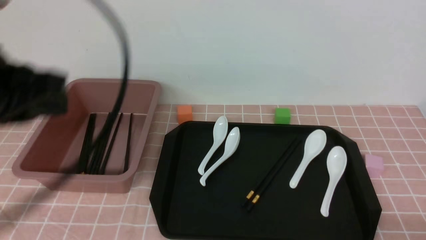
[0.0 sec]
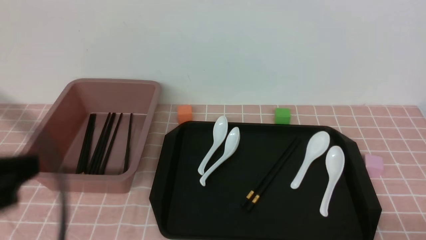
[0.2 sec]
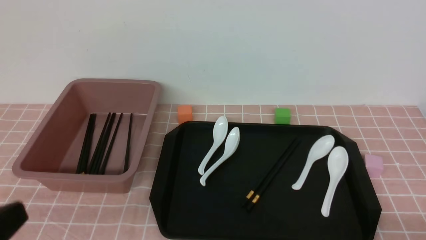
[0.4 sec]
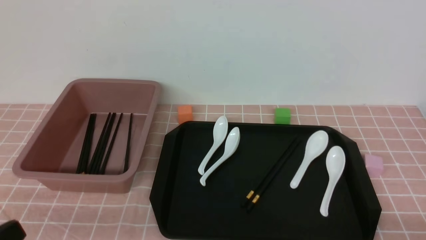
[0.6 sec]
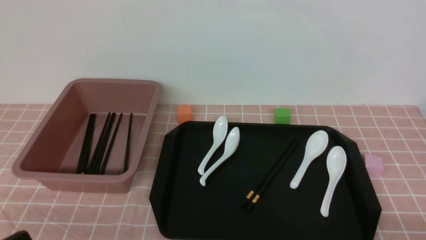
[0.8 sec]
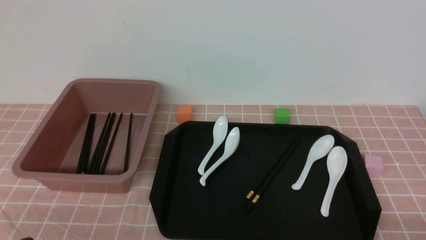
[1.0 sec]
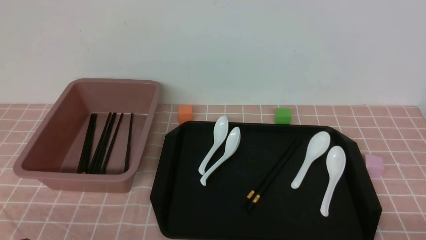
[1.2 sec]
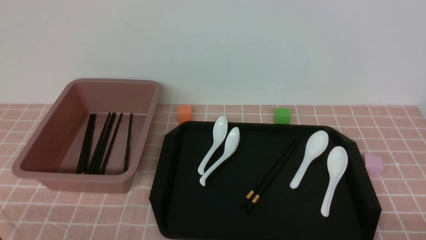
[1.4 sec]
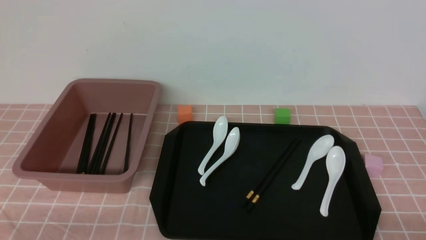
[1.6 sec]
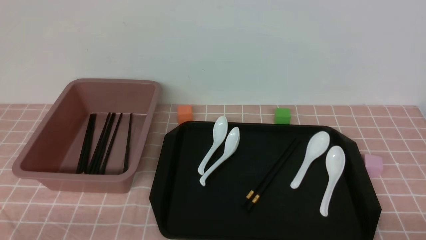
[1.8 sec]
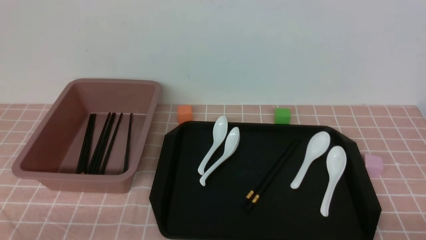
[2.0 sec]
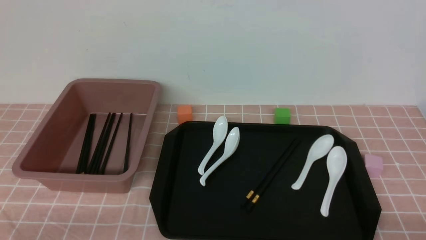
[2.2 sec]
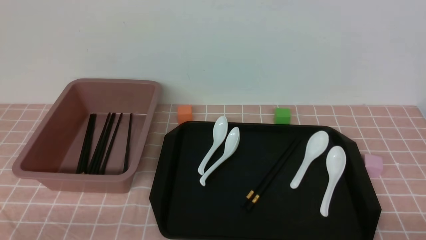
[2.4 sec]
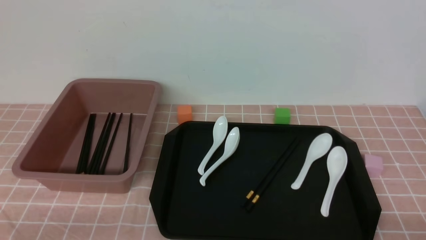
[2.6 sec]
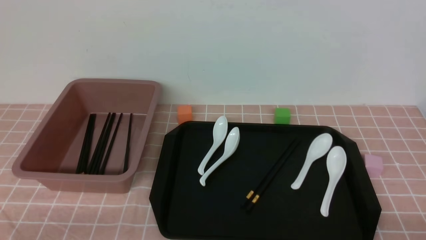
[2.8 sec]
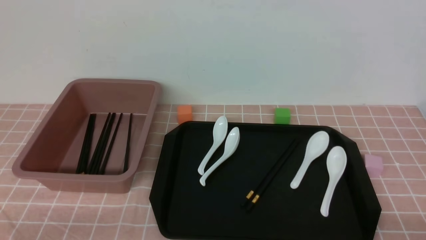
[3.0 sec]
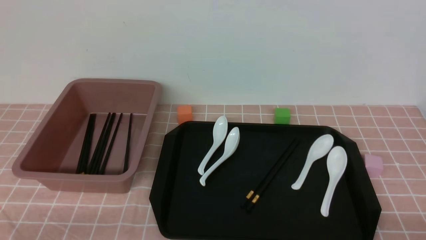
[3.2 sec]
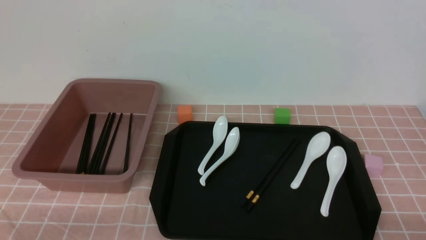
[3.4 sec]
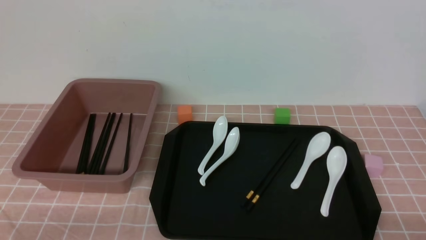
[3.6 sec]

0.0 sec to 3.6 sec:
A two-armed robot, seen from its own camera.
0.0 sec to 1.8 sec: The left gripper shifts approximately 25 cm downward and backward.
1.8 sec to 3.6 sec: Both grippers stay about where they are.

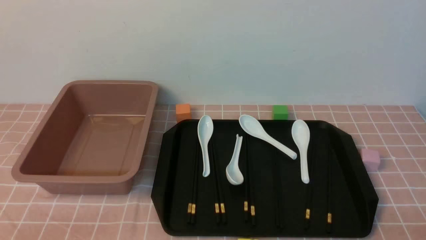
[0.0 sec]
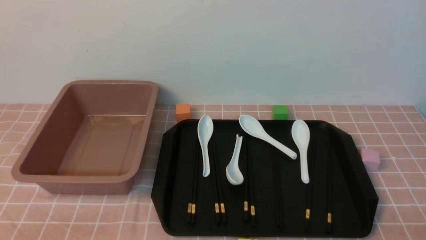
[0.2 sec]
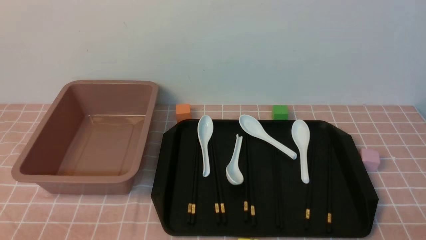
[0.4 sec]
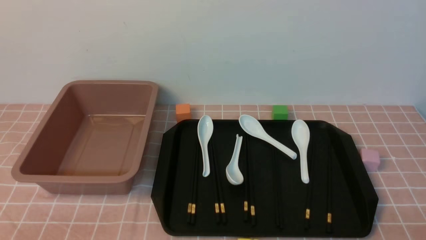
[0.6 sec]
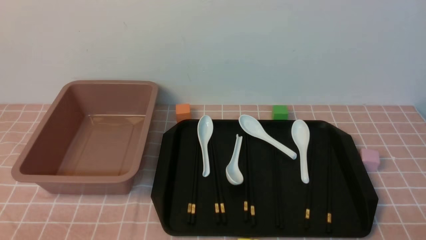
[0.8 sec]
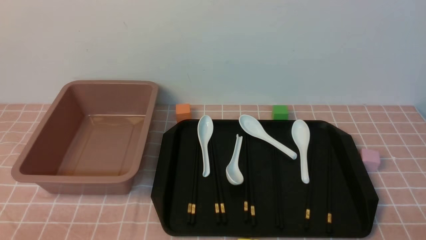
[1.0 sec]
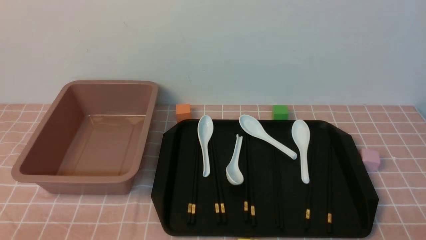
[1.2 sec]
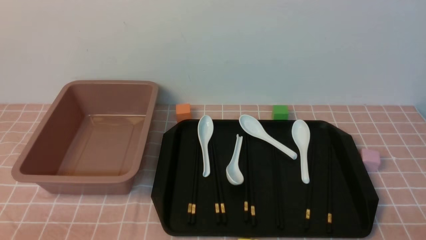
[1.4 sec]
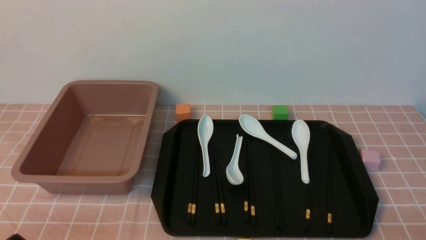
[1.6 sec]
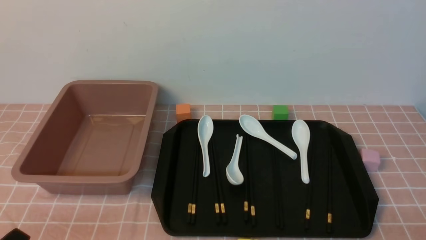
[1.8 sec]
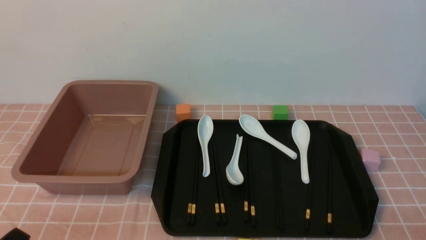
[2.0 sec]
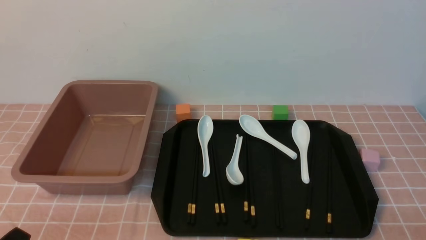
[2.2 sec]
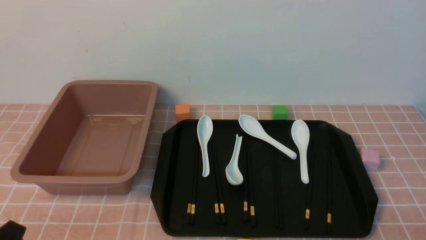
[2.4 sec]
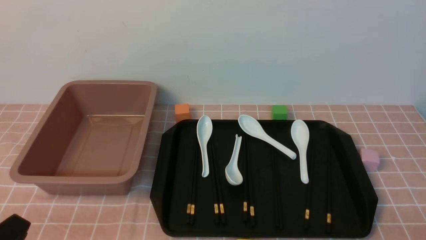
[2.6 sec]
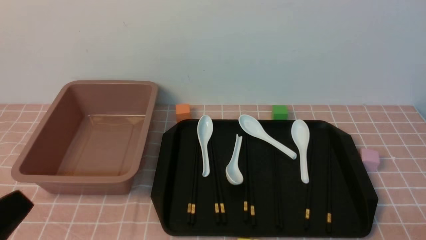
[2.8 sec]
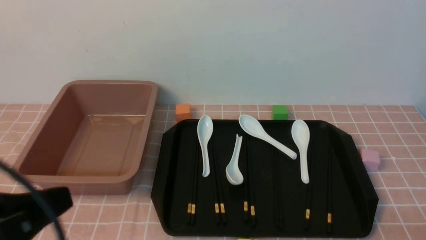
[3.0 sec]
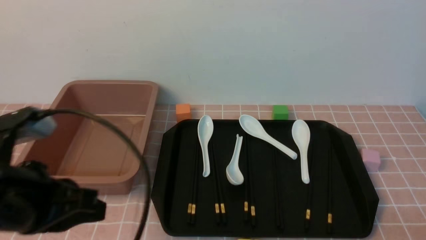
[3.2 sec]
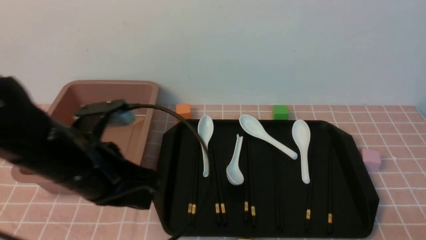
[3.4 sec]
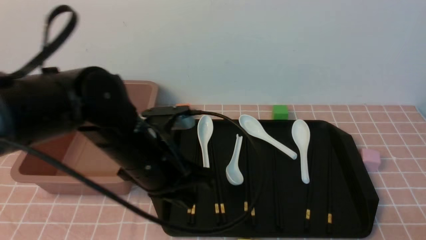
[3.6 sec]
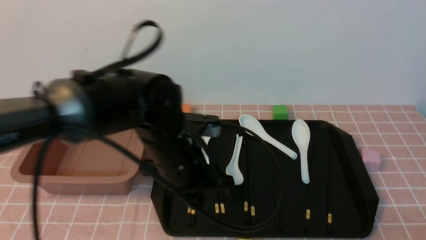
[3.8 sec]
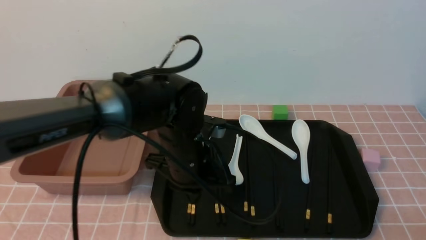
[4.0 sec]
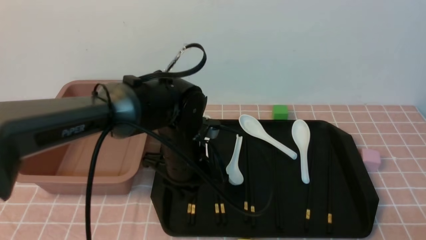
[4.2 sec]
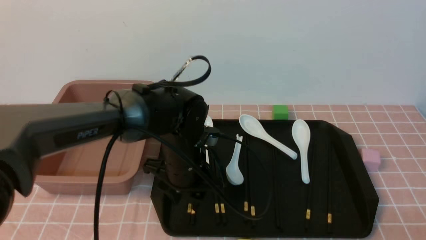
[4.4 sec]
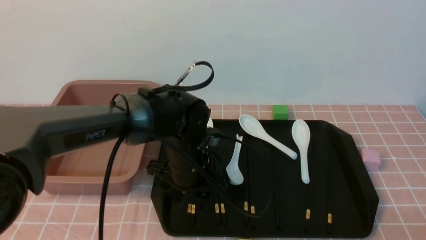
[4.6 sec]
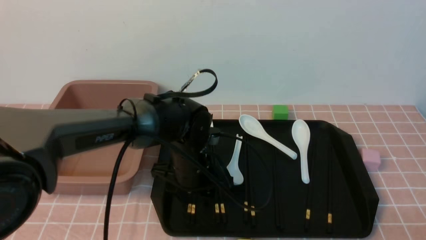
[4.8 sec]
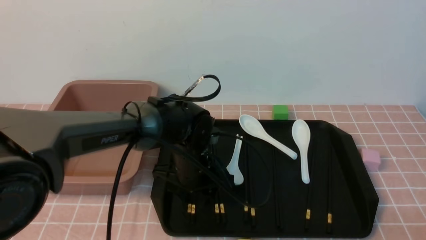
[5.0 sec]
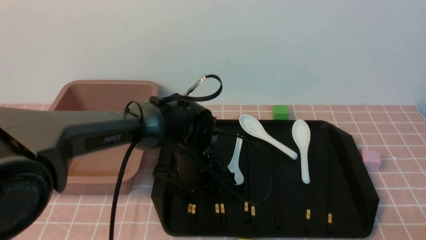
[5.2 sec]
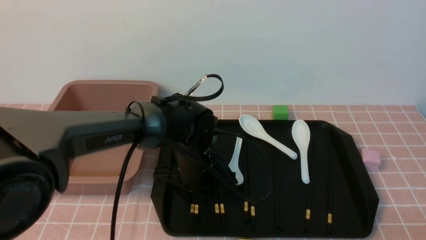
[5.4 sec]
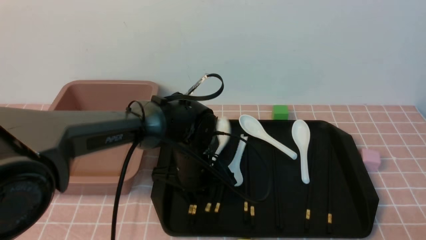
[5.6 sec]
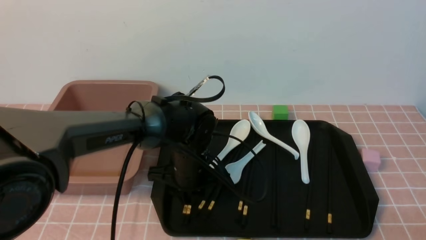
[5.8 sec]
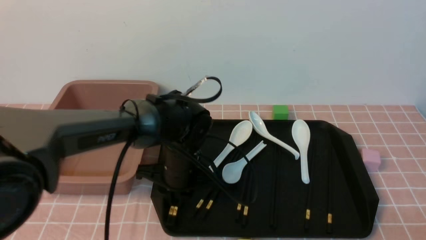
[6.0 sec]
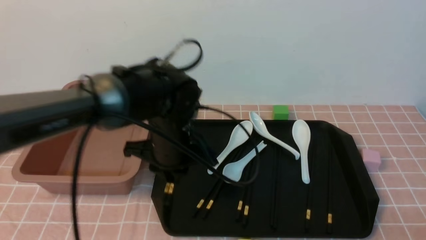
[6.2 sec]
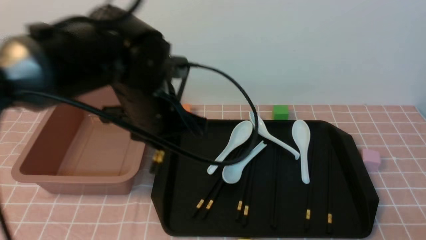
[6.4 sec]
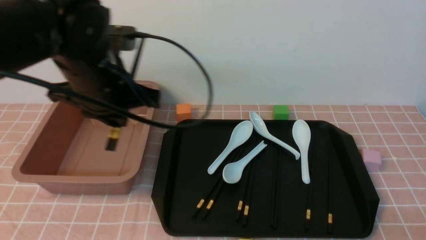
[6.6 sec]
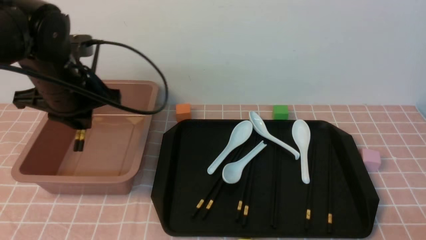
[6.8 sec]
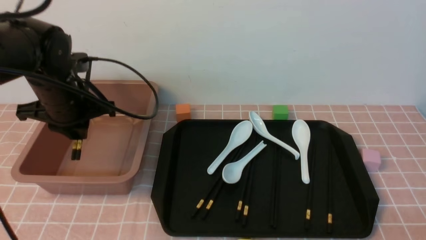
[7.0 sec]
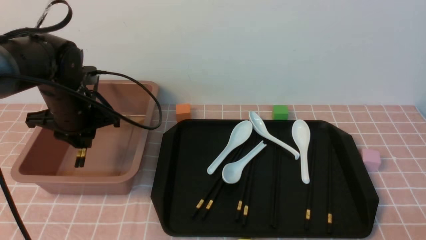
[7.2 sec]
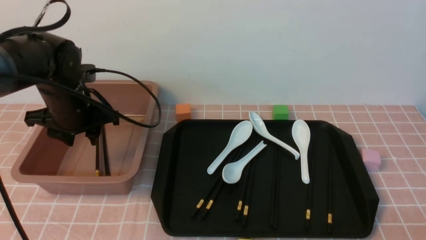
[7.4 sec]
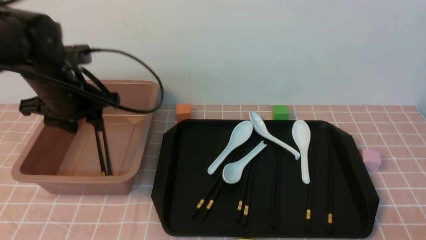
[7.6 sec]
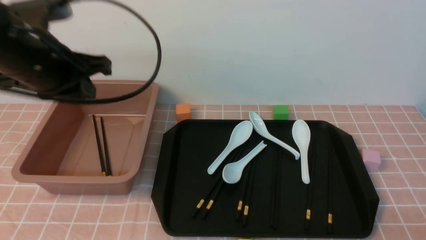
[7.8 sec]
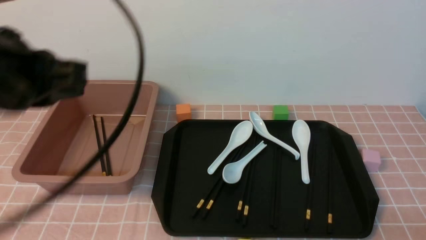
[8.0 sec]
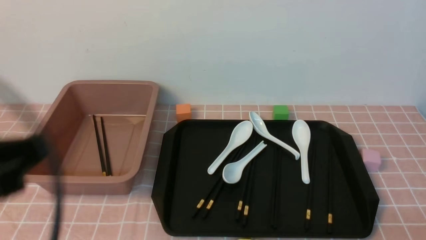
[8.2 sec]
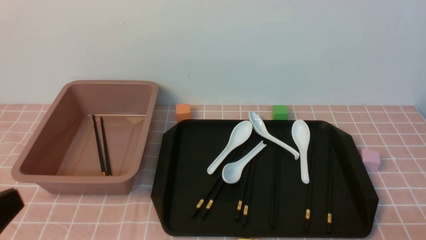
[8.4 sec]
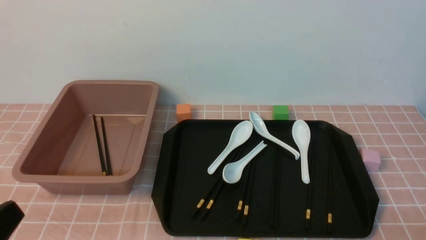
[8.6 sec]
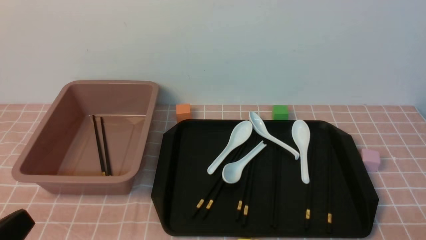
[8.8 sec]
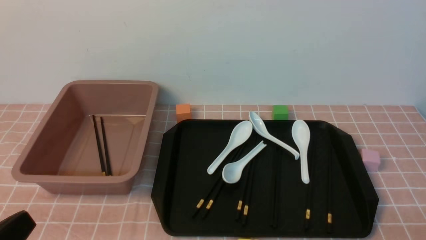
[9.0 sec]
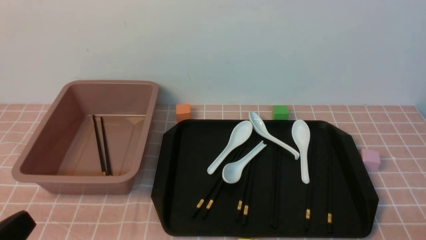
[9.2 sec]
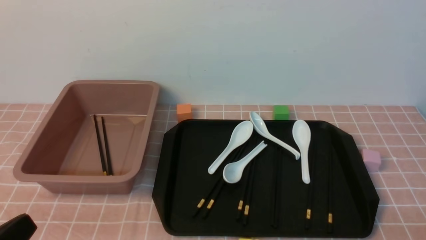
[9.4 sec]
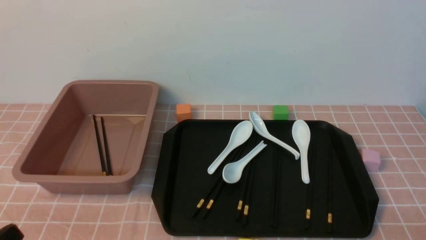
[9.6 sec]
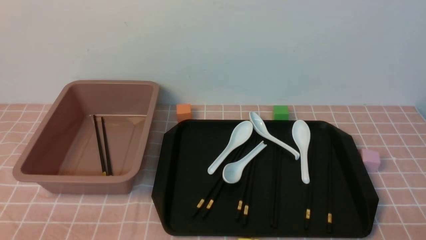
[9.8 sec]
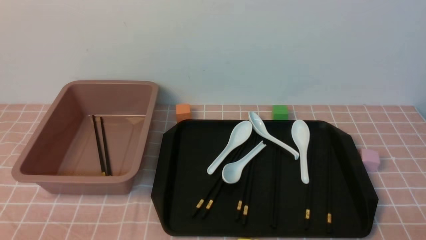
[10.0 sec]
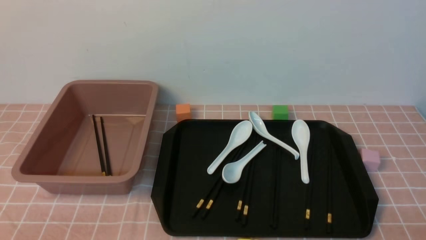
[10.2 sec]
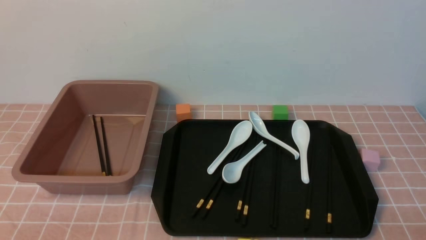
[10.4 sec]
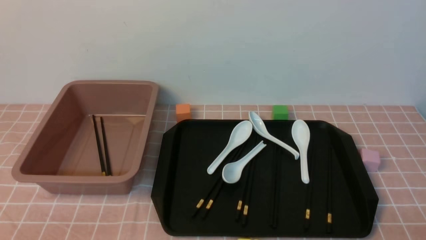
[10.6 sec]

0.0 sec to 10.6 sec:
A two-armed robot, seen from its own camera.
Step, 0.0 sec to 6.0 sec: use the left arm to grab a pair of chopsticks.
Step, 6.4 sec to 7.6 sec: use the left arm to put the chopsticks into the lunch box.
1.6 sec to 3.0 sec: The left gripper goes roughly 15 cm upward, and closes.
3.0 sec to 4.6 sec: The left gripper travels forward, to the right and downward by some 35 cm, and opens its fingers.
4.6 sec to 6.0 sec: The left gripper closes.
6.0 sec to 7.6 sec: The left gripper shifts some 20 cm to the left and upward, and opens up.
7.6 sec to 9.0 sec: The left gripper heads backward, covering approximately 30 cm, and closes up.
9.0 sec to 10.6 sec: The left gripper goes some 10 cm downward.

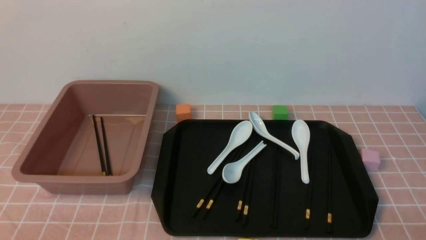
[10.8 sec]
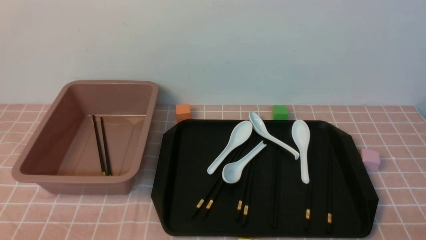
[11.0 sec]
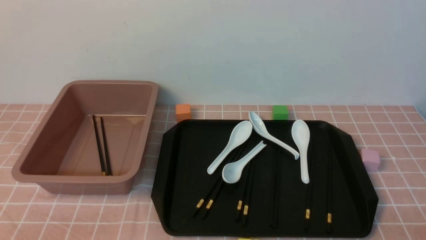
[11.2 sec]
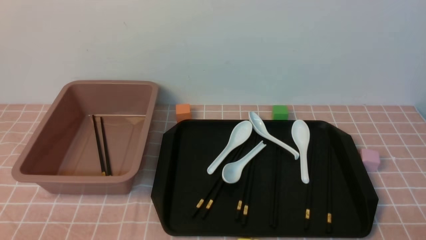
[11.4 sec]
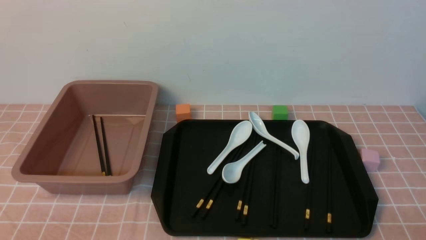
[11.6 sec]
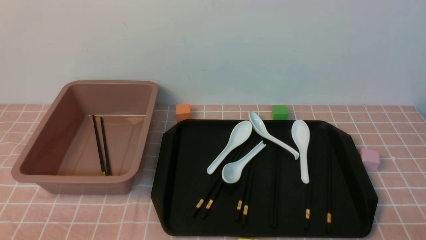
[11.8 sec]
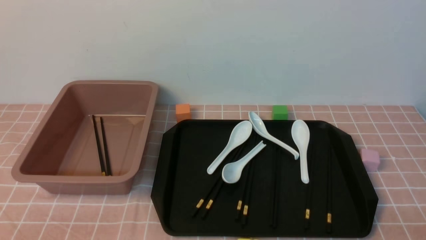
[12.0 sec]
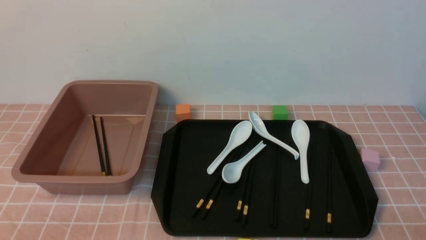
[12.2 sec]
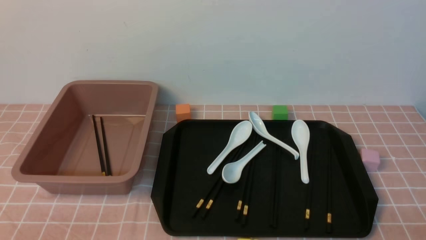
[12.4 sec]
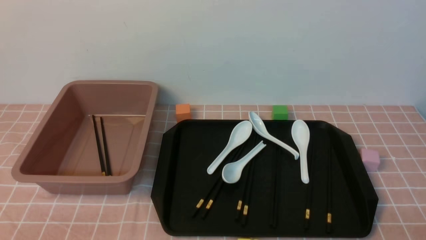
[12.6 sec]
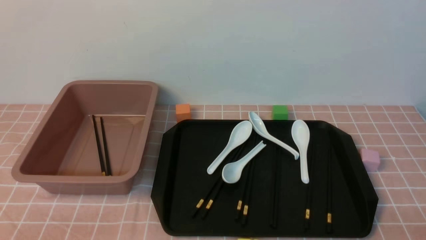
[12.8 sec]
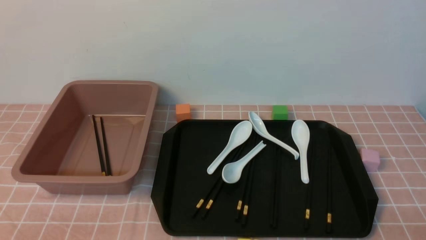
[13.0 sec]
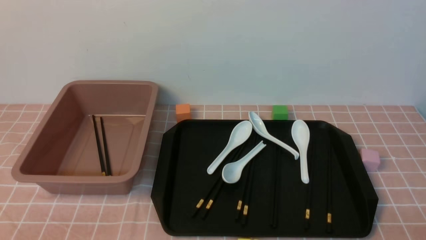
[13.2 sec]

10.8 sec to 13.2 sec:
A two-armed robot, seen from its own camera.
10.8 sec to 13.2 sec: Both grippers stay put.
